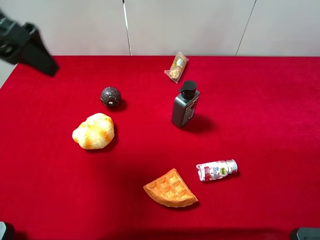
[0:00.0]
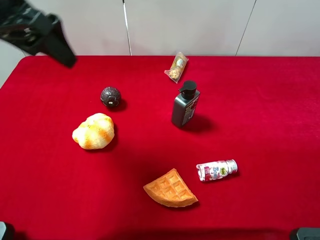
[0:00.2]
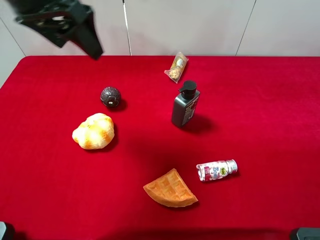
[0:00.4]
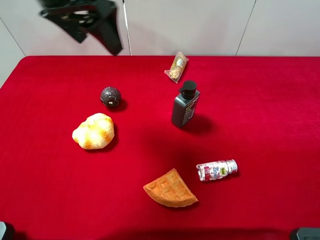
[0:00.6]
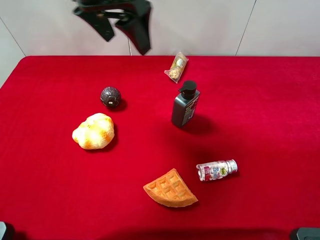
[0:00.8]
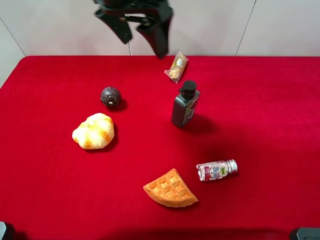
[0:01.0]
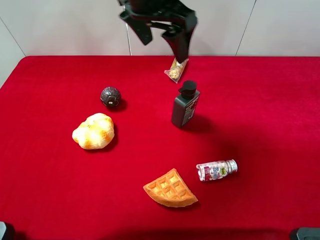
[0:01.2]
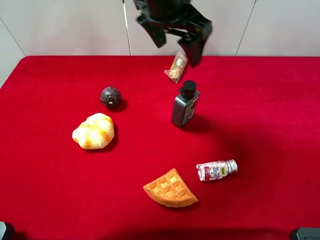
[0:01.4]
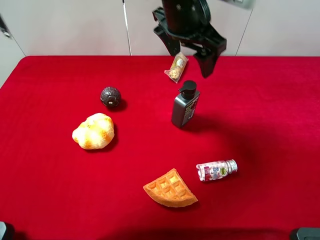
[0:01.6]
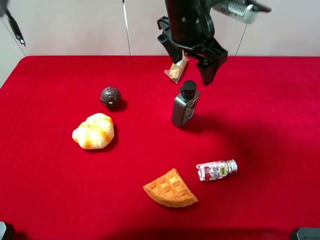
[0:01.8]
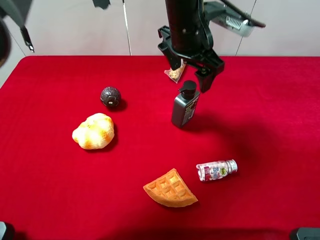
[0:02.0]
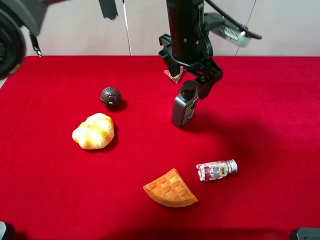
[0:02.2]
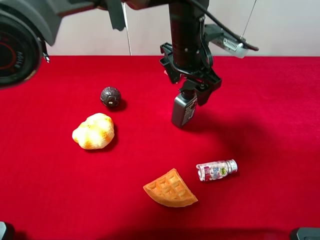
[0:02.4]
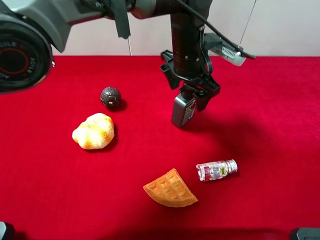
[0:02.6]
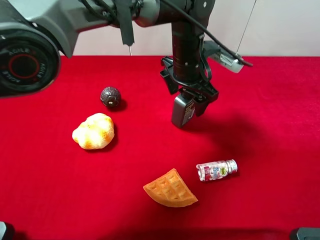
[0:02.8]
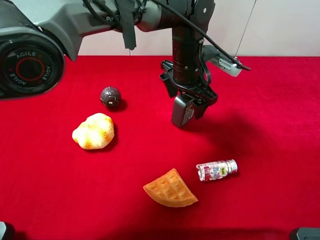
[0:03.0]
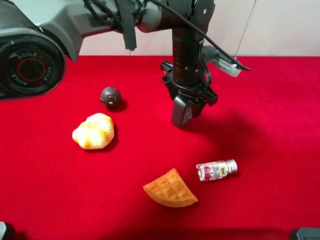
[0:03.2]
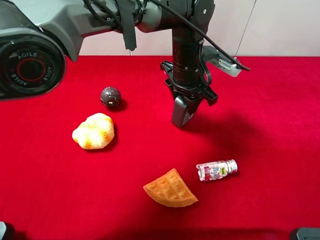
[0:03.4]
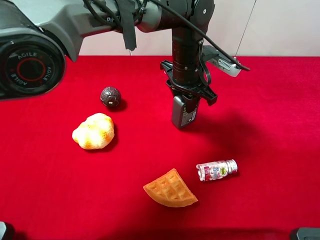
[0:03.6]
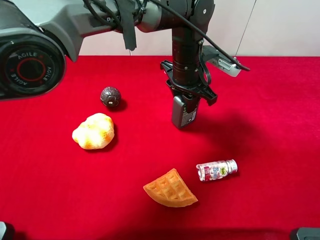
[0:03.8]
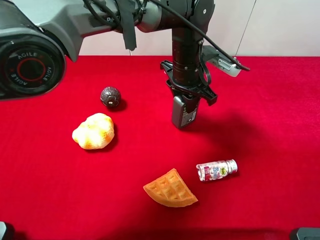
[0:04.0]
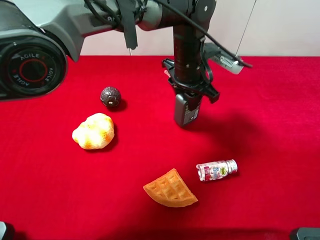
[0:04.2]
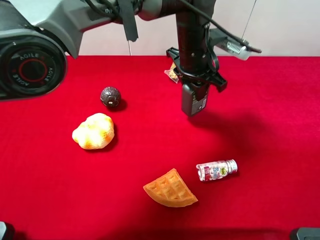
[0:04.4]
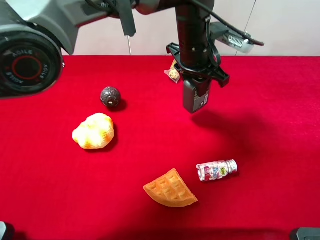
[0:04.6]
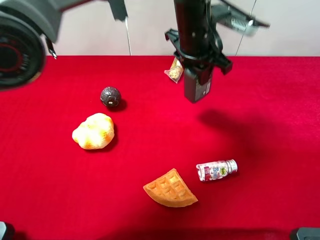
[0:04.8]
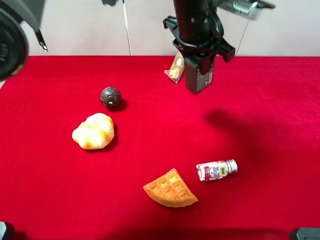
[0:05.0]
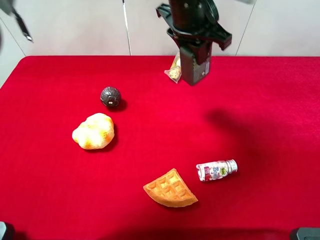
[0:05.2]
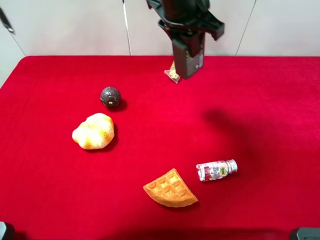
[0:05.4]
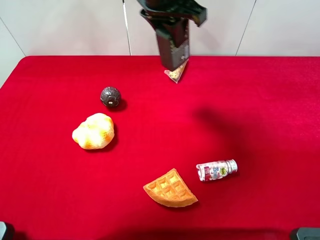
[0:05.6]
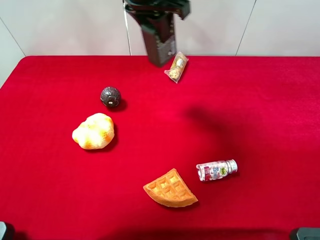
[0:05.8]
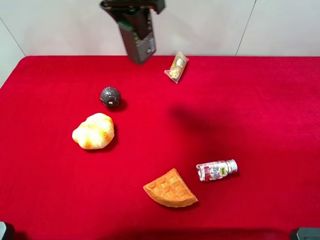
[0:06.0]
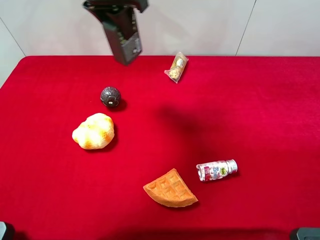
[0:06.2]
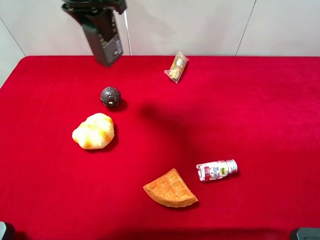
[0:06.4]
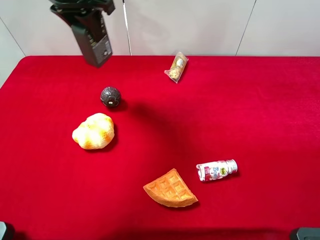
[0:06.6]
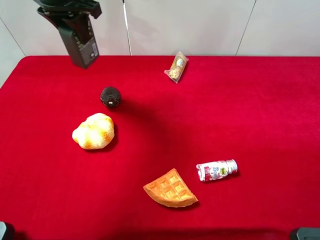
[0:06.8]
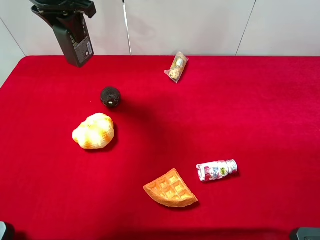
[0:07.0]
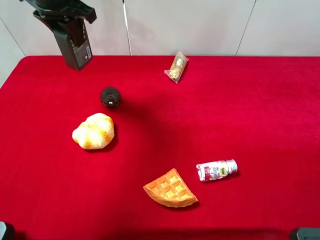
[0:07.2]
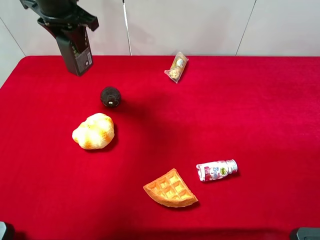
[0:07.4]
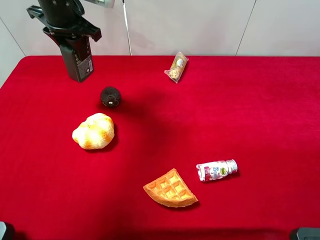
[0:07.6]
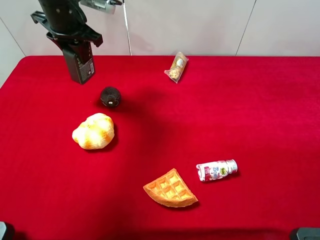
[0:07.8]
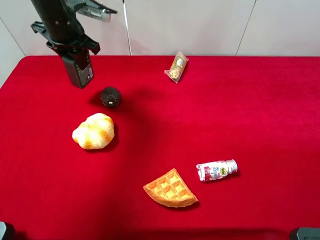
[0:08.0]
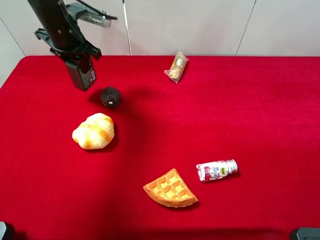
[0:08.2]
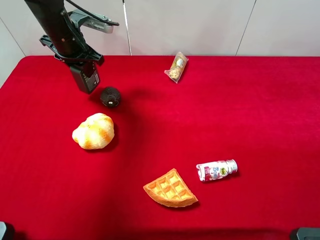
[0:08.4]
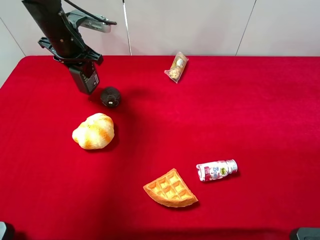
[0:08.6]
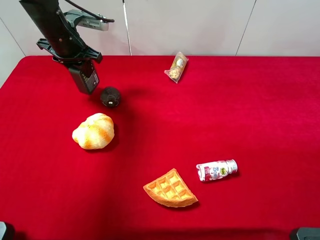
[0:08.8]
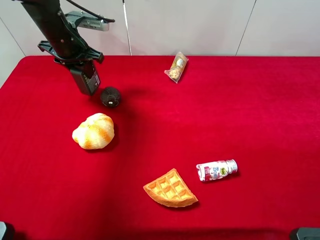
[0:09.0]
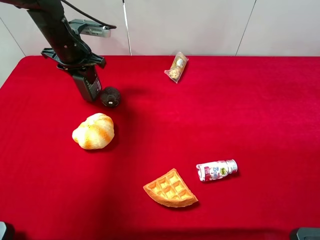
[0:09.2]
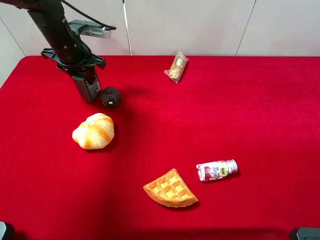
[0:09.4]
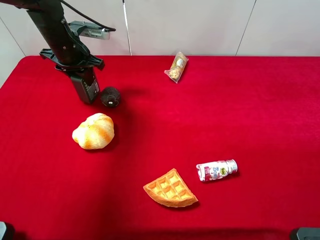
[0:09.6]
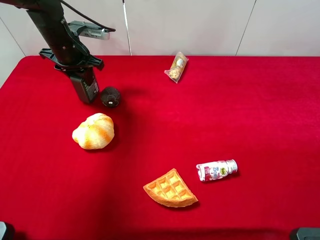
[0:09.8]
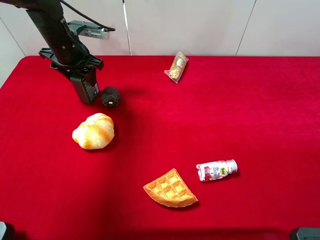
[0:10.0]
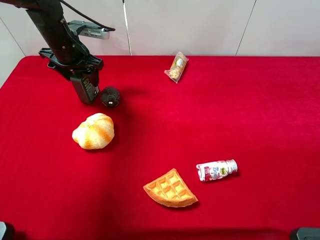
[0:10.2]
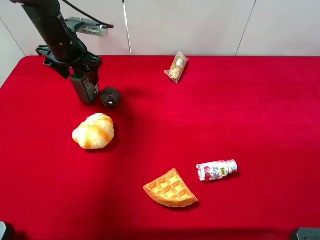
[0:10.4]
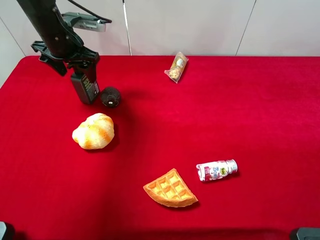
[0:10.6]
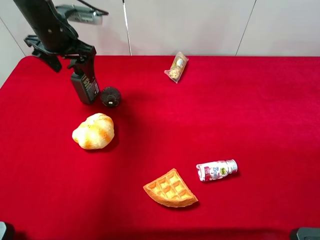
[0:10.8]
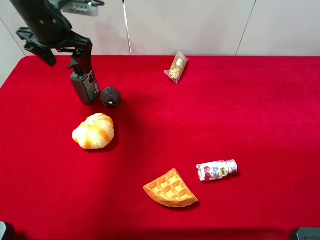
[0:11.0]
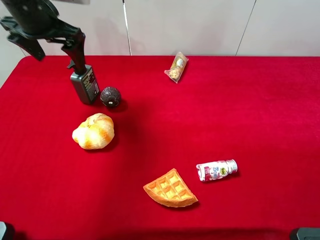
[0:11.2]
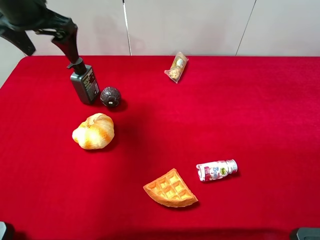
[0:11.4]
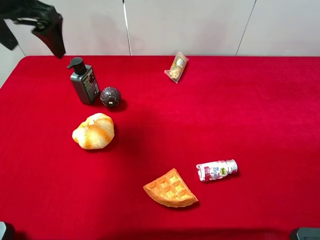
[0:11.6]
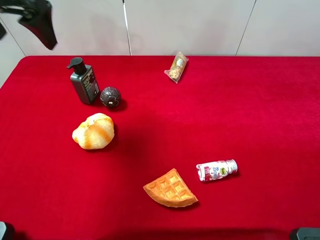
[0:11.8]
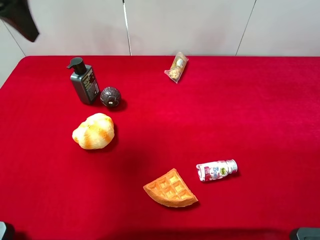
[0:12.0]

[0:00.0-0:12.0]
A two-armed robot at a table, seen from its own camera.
Task of the whole recording: the gripper move the object.
Step, 0:00.0 to 0:03.4: Grasp the hard facial cleanser with the left gripper.
Step, 0:03.6 to 0:11.4: Place the hard facial cleanser on the table with the left gripper.
0:00.0 to 0:01.6: The left gripper shifts roughly 25 cm to the right.
0:01.6 to 0:03.0: The left gripper heads downward, covering approximately 10 cm.
0:03.0 to 0:04.4: The left gripper closes its fingers.
0:04.4 to 0:06.0: The left gripper goes approximately 20 cm to the left and upward.
0:06.0 to 0:07.6: The left gripper moves to the left and downward, roughly 15 cm.
0:07.6 to 0:09.0: The left gripper travels downward by about 5 cm.
0:09.0 to 0:10.4: The left gripper opens its fingers.
0:10.4 to 0:12.0: The left gripper moves upward and backward, roughly 25 cm.

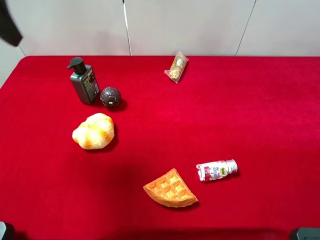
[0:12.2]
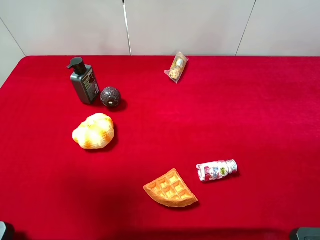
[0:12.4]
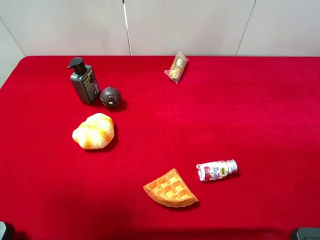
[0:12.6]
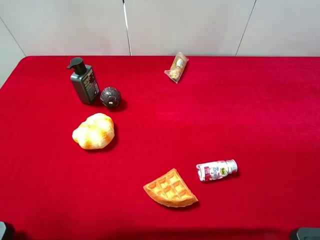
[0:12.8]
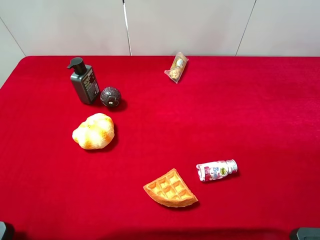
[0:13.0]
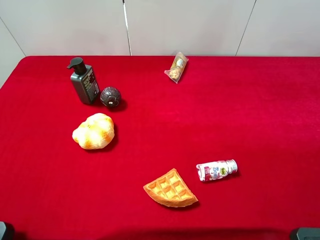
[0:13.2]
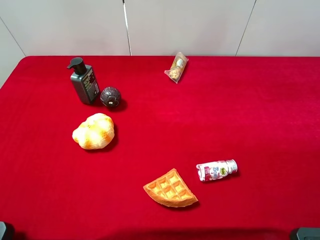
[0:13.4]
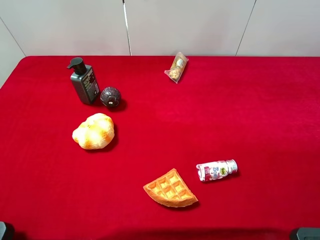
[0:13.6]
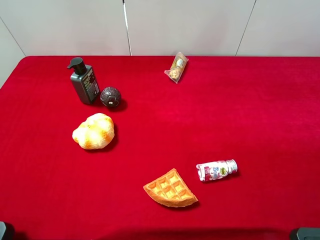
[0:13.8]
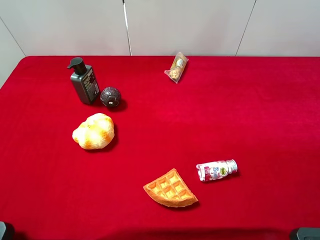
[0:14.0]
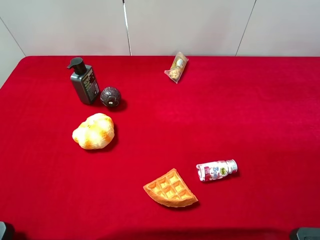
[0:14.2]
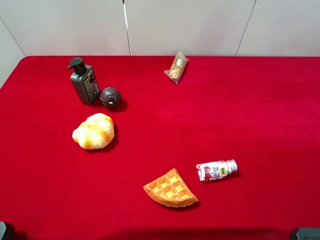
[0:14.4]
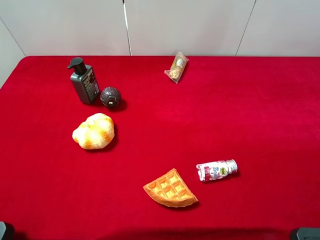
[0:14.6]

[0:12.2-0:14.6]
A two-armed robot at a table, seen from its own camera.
Task of the whole recording: the gripper move the object.
0:12.2 to 0:13.4: The left gripper heads backward and downward, covering some 20 cm.

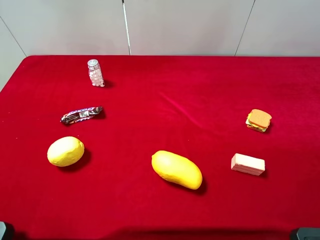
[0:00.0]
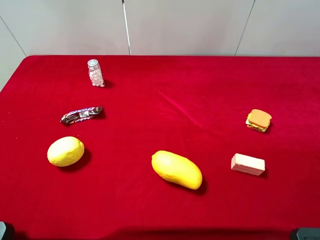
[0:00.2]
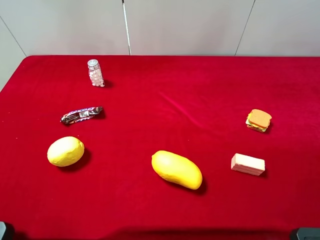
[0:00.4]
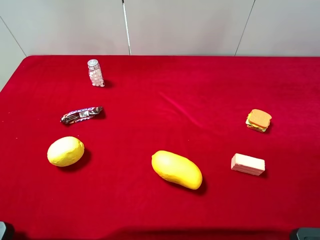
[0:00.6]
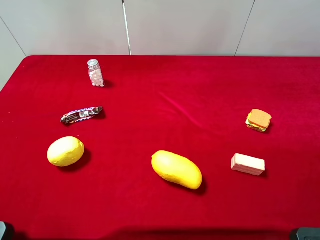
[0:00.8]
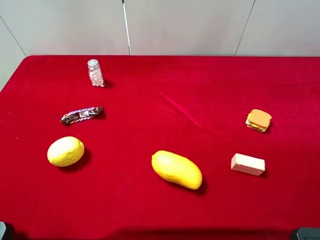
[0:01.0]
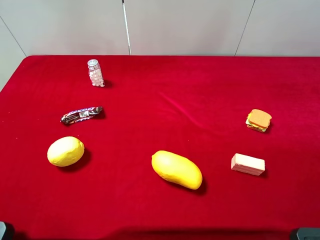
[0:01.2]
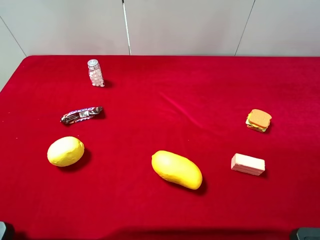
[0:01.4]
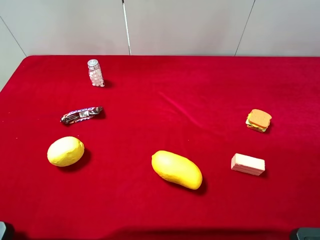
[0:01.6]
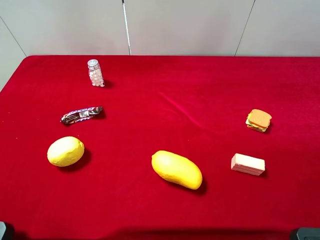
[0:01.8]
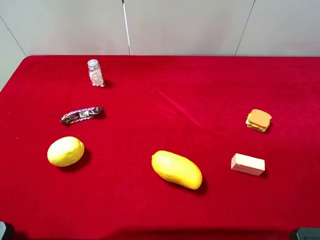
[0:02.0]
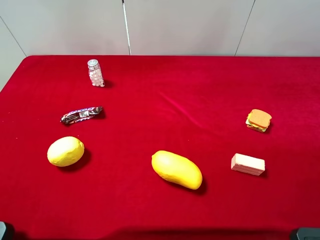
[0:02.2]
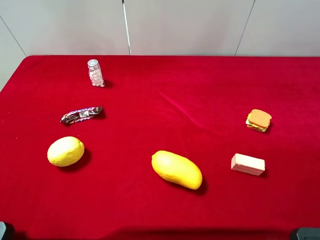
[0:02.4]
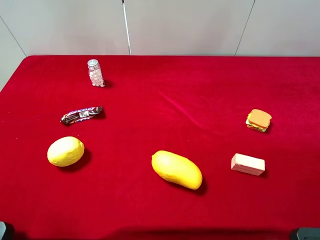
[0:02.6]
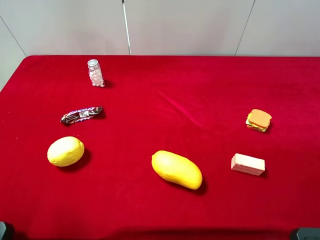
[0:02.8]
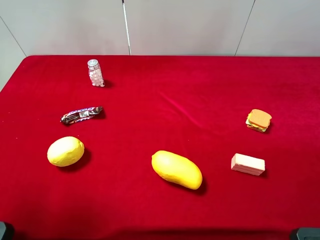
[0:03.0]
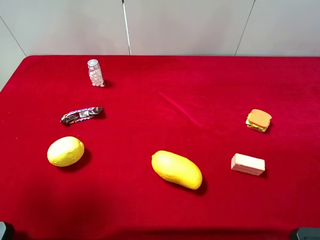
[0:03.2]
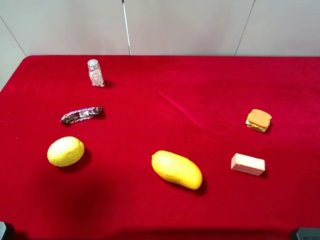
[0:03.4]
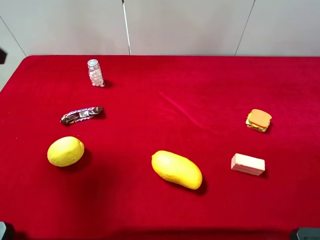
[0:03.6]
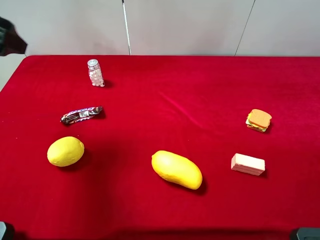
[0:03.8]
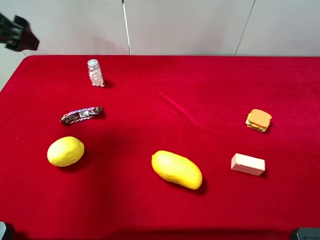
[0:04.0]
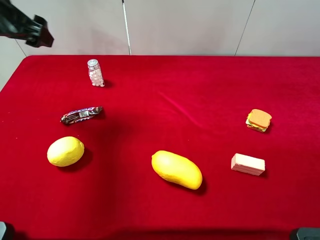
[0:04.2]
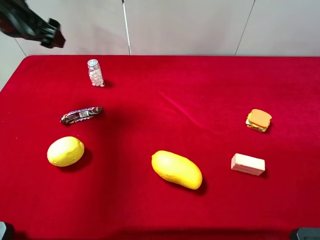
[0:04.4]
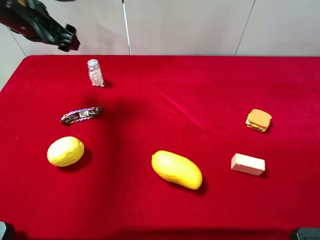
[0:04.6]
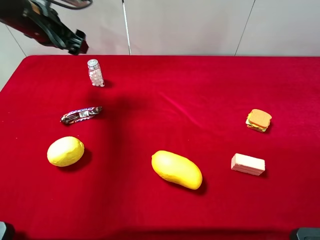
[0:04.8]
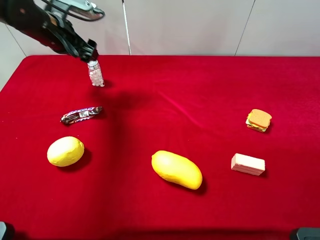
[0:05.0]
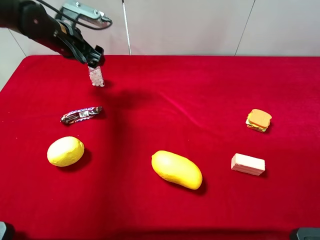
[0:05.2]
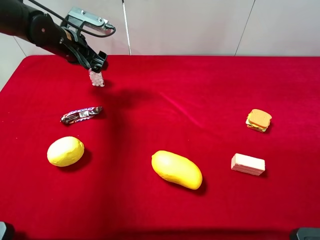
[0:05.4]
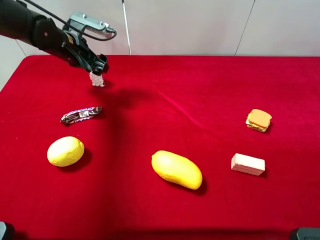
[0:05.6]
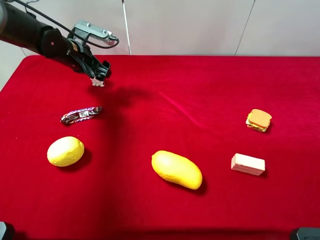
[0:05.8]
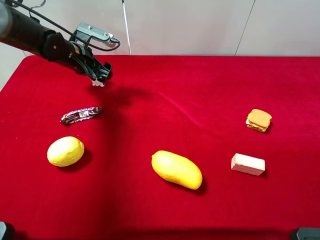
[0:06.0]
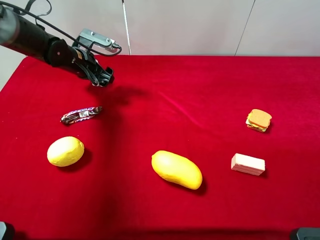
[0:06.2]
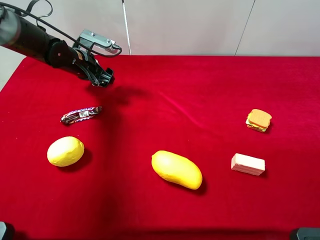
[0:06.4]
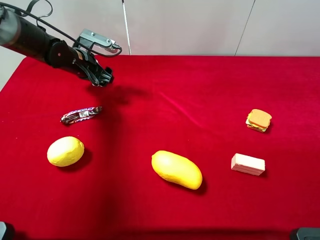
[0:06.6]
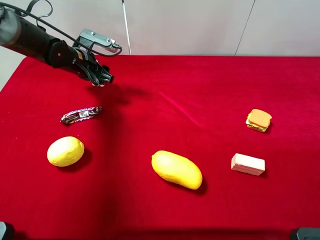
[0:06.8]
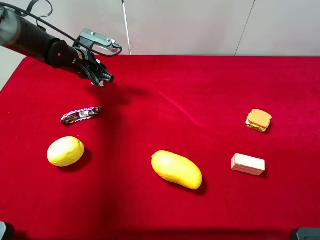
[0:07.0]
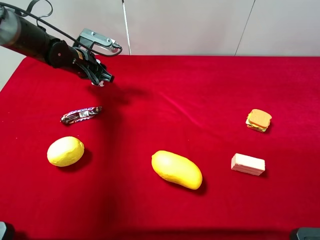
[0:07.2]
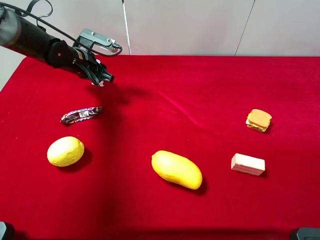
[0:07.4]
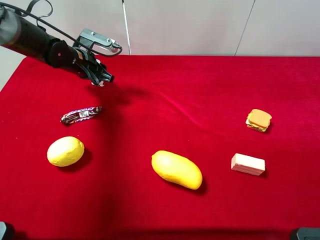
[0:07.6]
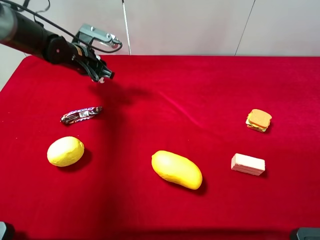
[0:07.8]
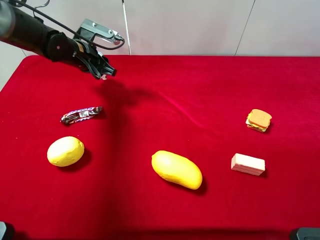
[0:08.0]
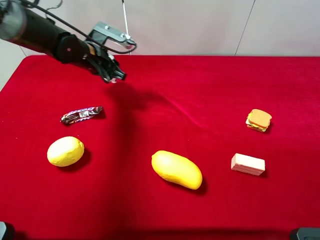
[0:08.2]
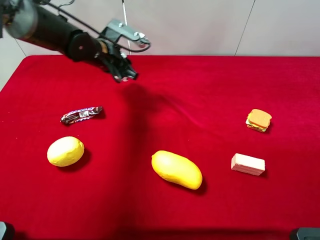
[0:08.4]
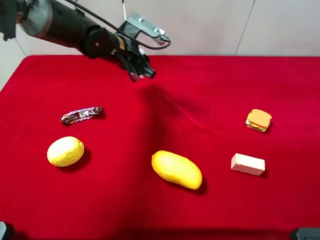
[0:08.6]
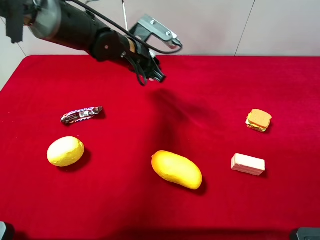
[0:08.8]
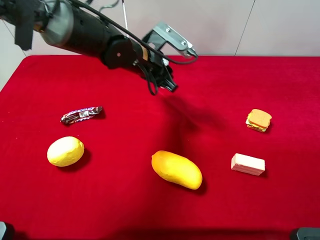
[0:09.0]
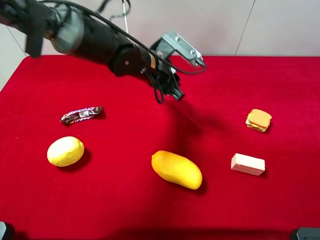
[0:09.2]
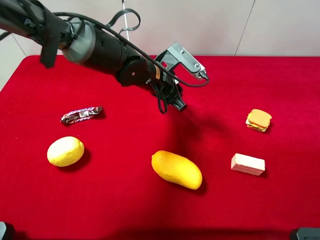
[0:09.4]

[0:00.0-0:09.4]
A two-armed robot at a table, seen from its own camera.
Task of the whole recording: the gripper move the object.
Step, 0:00.0 to 0:07.2: Grasp the mint candy with the left gripper.
0:00.0 to 0:01.6: The two grippers keep their place.
0:01.6 to 0:03.2: The left gripper goes roughly 15 cm forward.
0:03.2 to 0:04.8: The left gripper moves forward and downward, roughly 25 cm.
0:04.8 to 0:06.2: The left gripper goes about 10 cm downward.
0:06.2 to 0:07.8: The left gripper closes its fingers.
0:07.8 to 0:09.4: The left gripper heads to the right and backward, covering roughly 20 cm.
